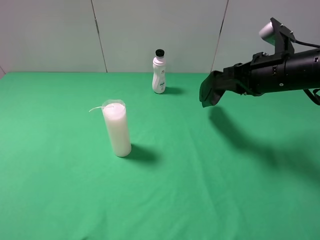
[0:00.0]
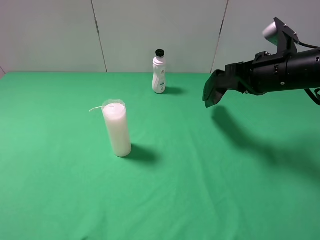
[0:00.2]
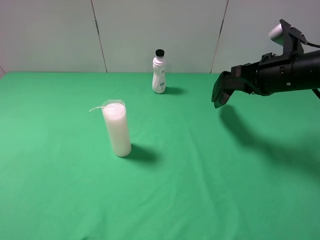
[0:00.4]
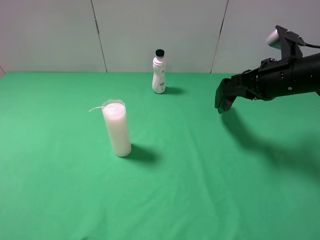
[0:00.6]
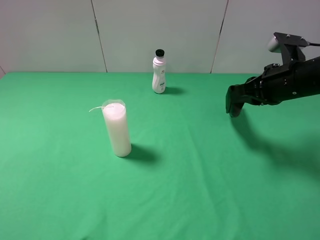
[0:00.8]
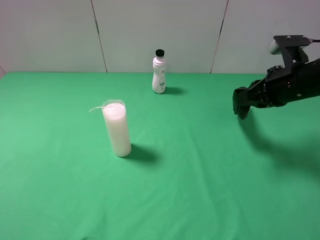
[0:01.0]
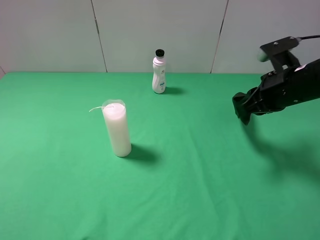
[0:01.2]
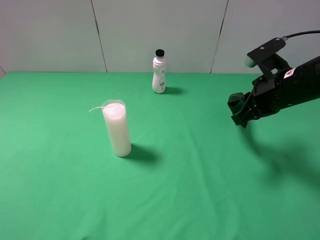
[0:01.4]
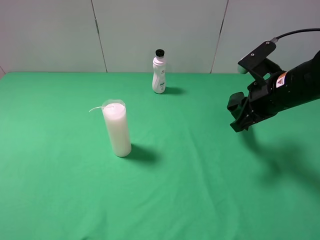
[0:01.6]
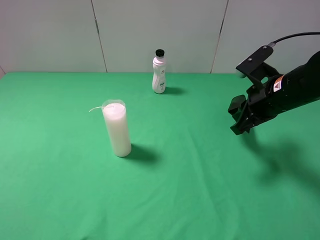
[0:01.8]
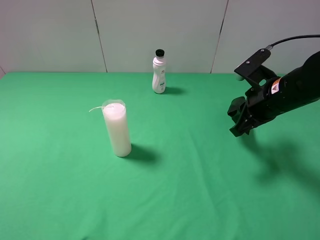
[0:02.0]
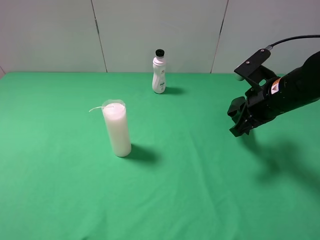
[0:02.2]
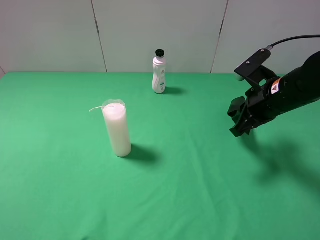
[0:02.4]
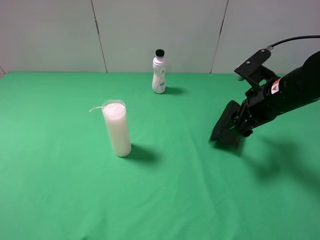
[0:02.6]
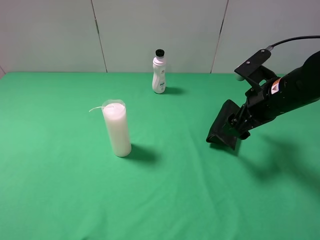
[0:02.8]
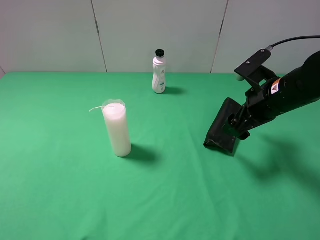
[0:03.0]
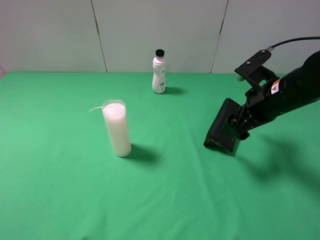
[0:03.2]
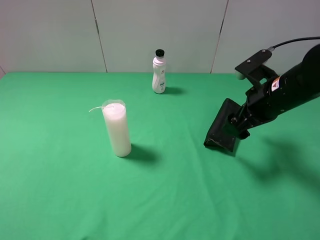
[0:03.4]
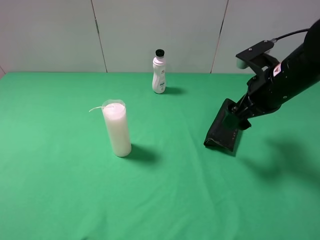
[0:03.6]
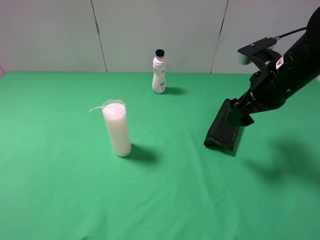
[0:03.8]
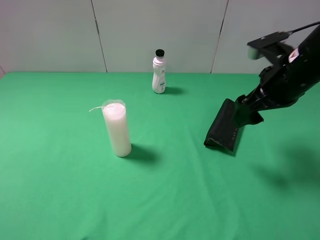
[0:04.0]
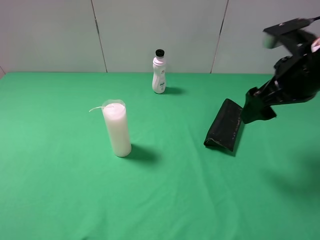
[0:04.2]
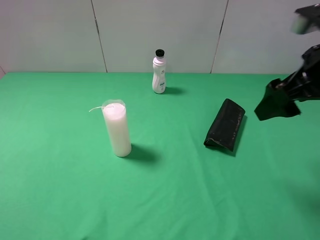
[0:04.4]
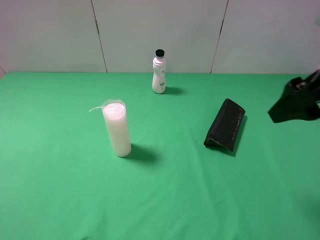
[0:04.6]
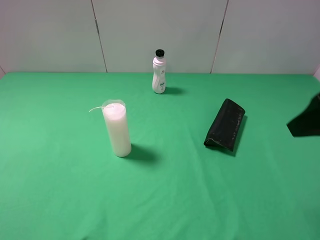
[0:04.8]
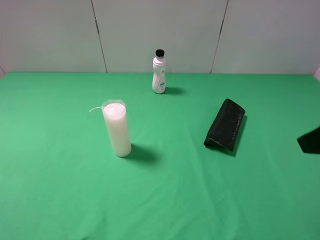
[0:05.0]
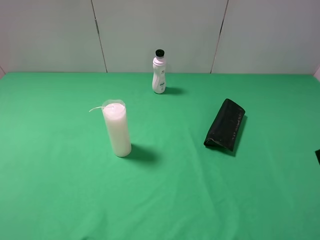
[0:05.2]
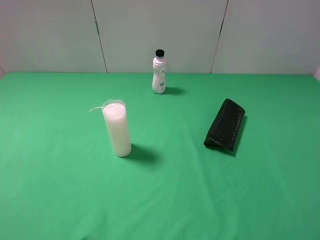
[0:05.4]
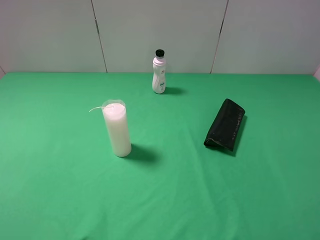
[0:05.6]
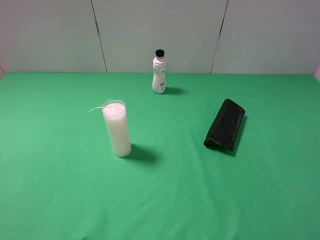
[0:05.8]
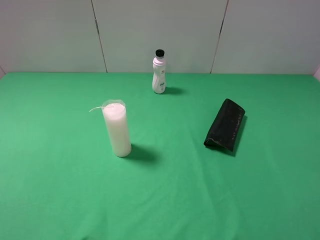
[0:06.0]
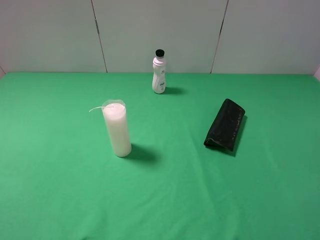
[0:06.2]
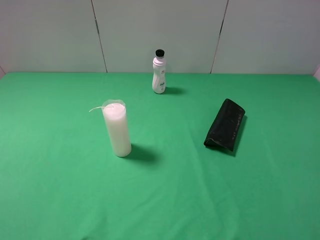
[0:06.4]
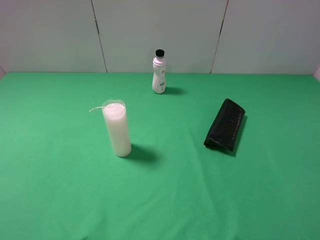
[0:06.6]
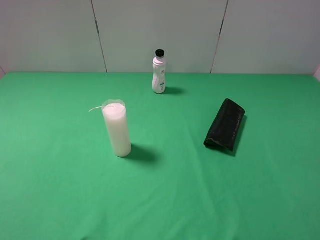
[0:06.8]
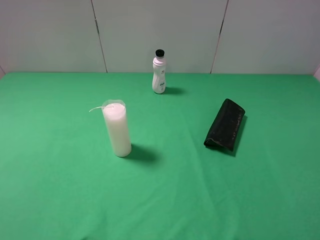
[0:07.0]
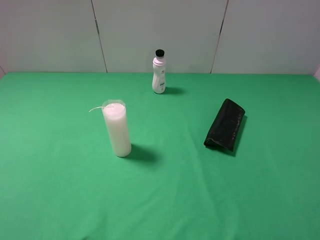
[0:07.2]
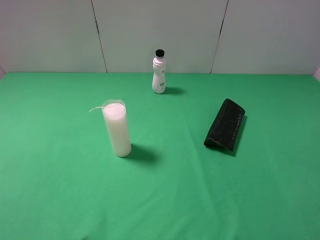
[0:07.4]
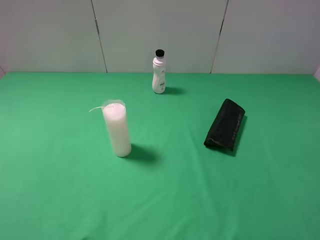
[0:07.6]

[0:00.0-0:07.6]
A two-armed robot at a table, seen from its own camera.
Task of the whole recording: use the left gripper to pick up the item and transfer it from the left gripper to the right gripper.
Step, 0:00.0 to 0:03.8: The right gripper places eyeglass case on the right side of the table.
0:01.6 to 0:03.0: The right gripper opens.
0:03.0 to 0:04.6: The right gripper goes some 15 cm upward and backward.
0:04.6 to 0:06.0: The right gripper shifts roughly 15 cm backward.
